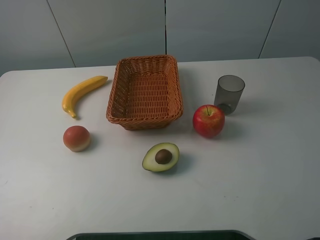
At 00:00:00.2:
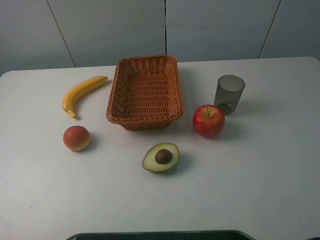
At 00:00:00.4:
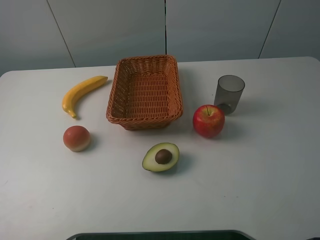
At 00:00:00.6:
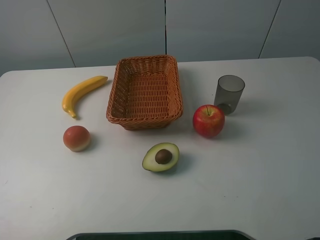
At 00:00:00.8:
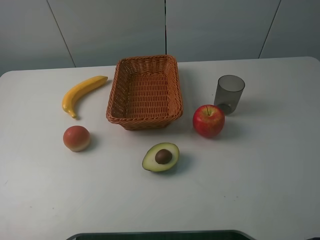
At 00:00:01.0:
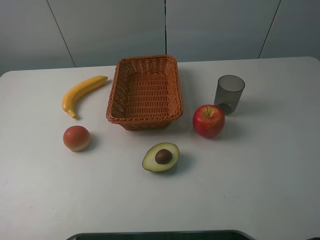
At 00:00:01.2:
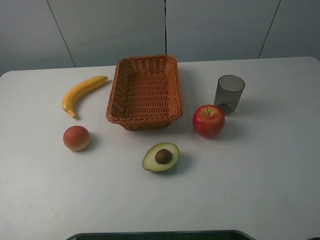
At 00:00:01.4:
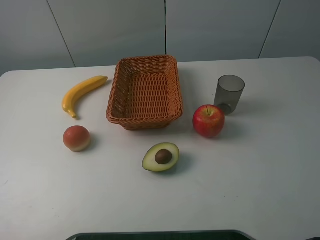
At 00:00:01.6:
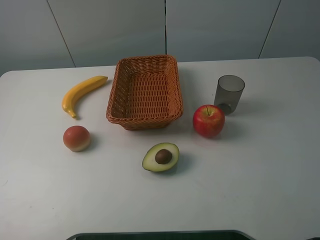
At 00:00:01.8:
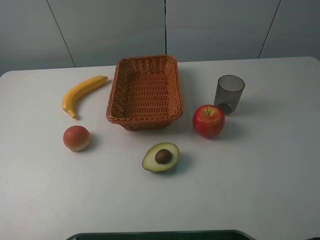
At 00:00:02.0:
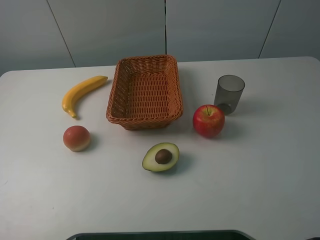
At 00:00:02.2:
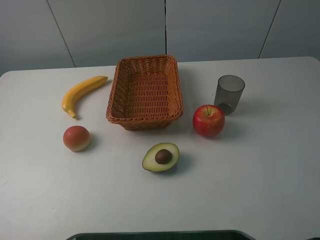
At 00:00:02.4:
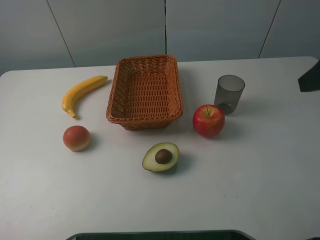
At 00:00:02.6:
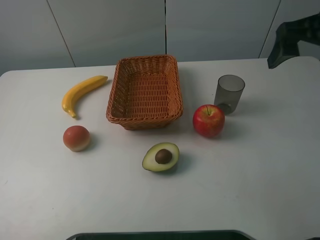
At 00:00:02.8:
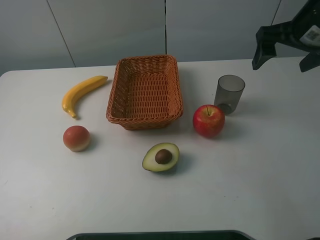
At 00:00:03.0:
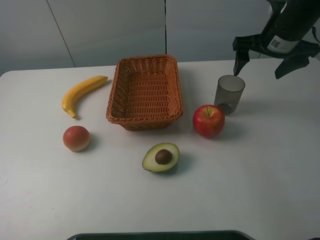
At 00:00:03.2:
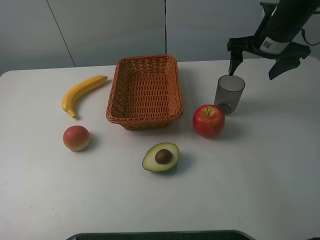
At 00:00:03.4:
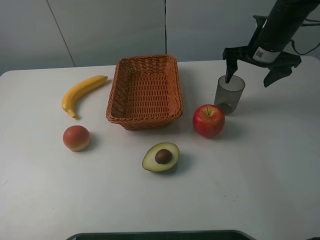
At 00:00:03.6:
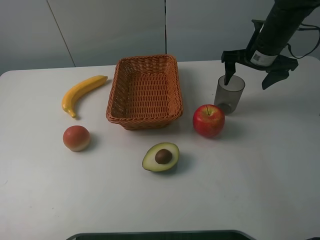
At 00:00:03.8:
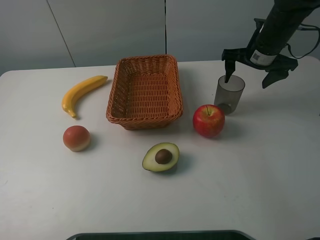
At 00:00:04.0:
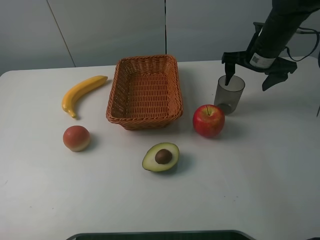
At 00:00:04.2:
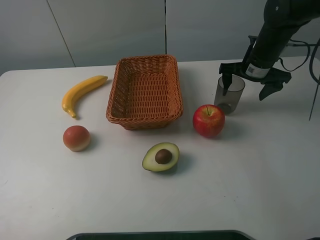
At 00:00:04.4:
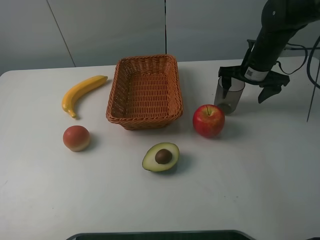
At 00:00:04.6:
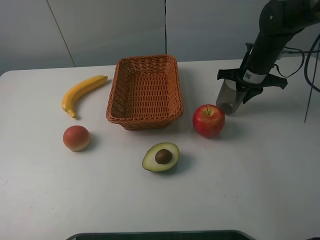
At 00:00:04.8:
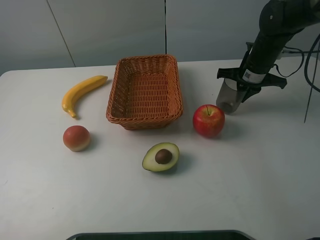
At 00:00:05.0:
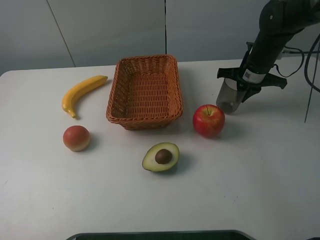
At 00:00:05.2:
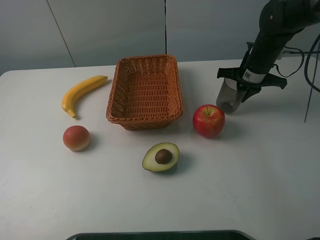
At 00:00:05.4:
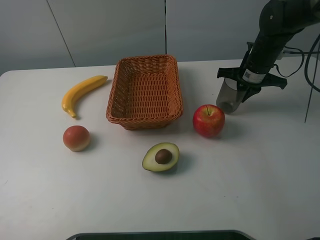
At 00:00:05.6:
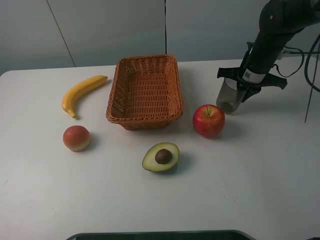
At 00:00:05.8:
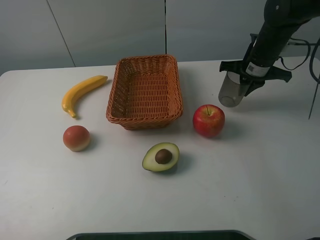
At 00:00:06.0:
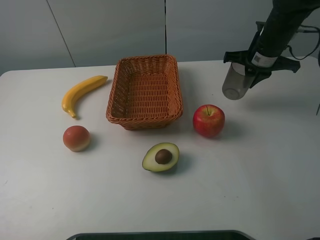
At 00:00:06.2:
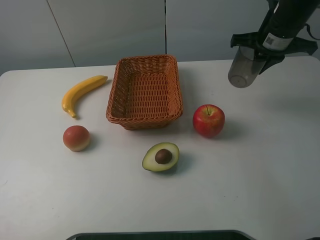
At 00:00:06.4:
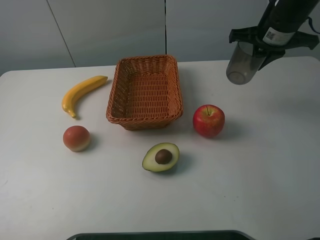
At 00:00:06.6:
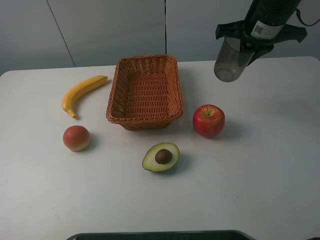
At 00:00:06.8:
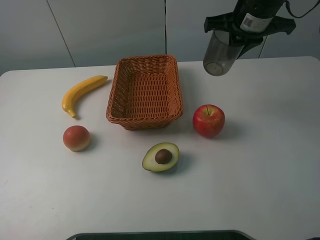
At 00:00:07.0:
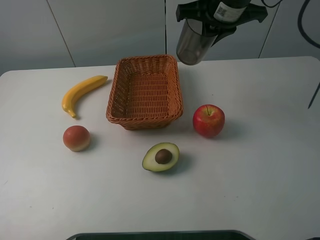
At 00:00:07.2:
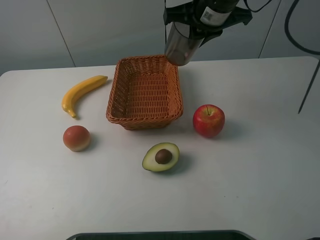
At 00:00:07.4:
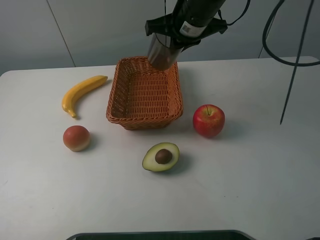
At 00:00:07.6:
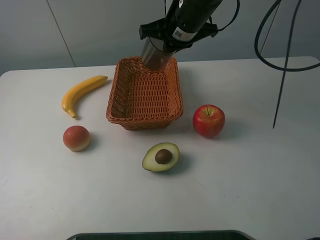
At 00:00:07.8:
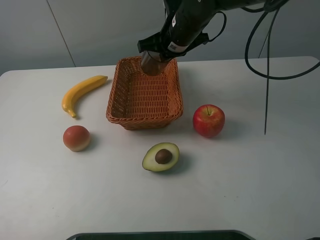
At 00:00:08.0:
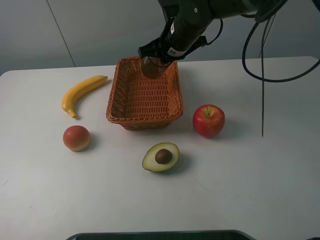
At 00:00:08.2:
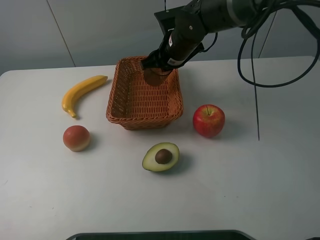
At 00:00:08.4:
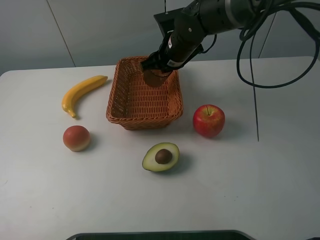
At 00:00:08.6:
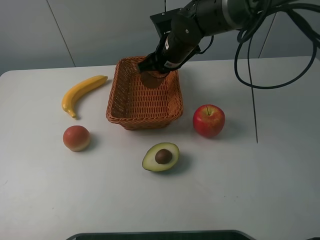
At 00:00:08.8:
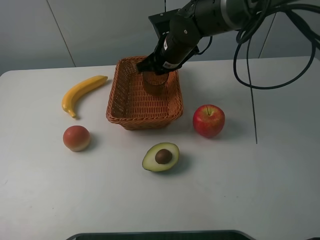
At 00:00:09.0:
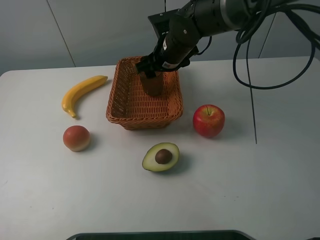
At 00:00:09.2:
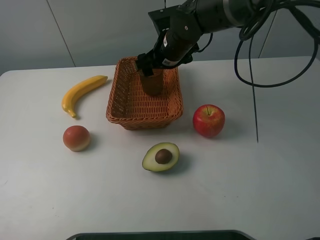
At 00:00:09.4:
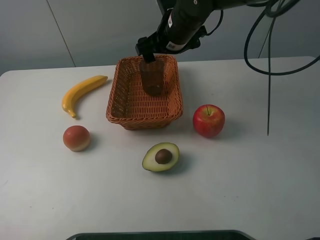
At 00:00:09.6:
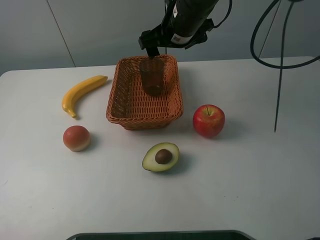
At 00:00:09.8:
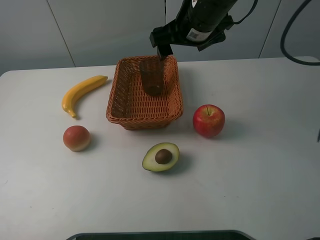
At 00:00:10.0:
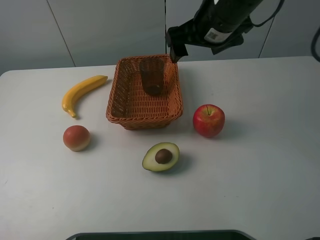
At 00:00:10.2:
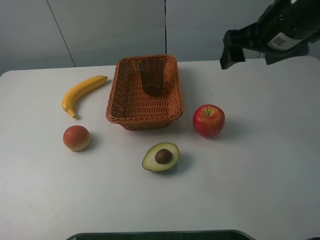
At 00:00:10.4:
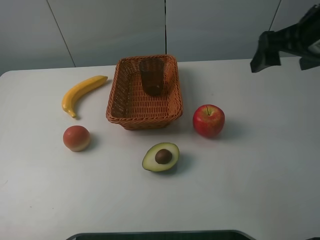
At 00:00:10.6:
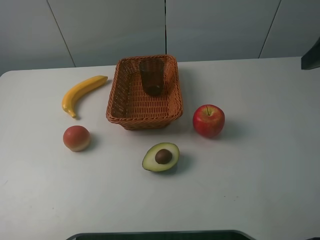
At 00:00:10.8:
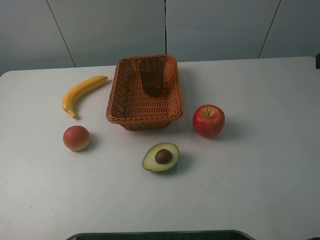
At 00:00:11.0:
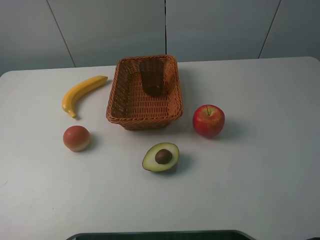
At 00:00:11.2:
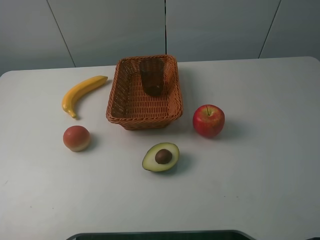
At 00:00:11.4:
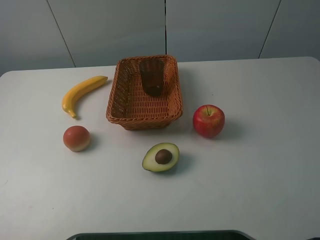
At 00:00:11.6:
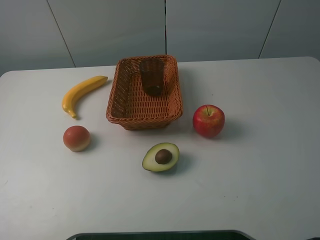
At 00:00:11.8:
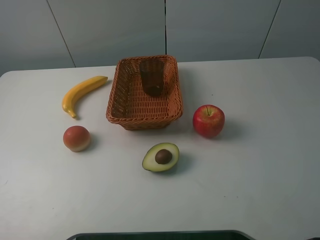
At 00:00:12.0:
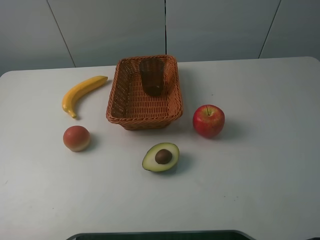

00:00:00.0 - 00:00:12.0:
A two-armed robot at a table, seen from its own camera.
00:00:00.0 - 00:00:01.6: Both grippers stay about where they are.
00:00:01.6 - 00:00:03.0: The right gripper goes approximately 35 cm forward.
00:00:03.0 - 00:00:04.4: The right gripper is displaced downward by about 10 cm.
00:00:04.4 - 00:00:06.0: The right gripper travels upward by some 5 cm, and closes its fingers.
00:00:06.0 - 00:00:07.6: The right gripper goes about 20 cm to the left.
00:00:07.6 - 00:00:09.0: The right gripper heads downward, covering some 5 cm, and opens.
00:00:09.0 - 00:00:10.4: The right gripper travels to the right, backward and upward by about 30 cm.
00:00:10.4 - 00:00:12.0: The right gripper travels backward by some 25 cm.

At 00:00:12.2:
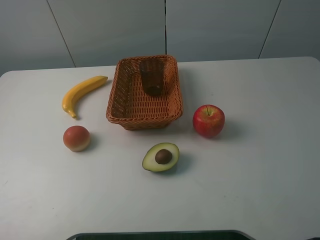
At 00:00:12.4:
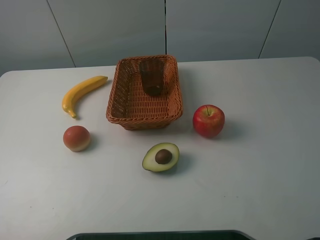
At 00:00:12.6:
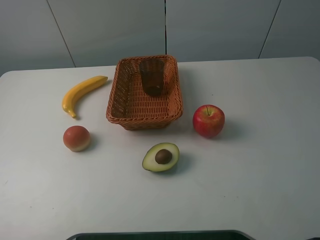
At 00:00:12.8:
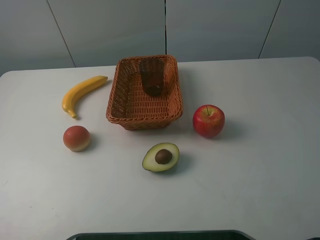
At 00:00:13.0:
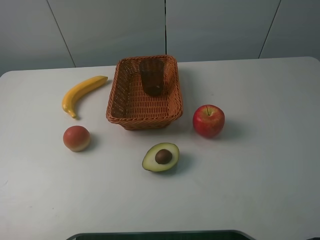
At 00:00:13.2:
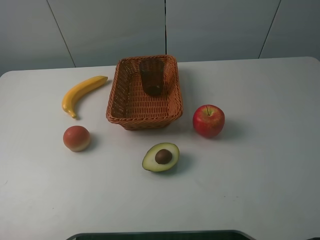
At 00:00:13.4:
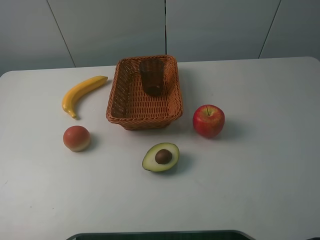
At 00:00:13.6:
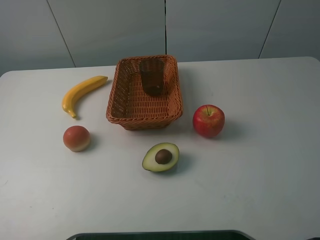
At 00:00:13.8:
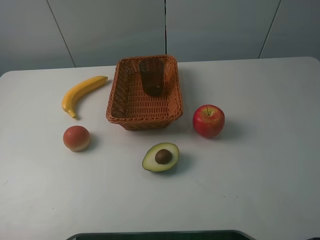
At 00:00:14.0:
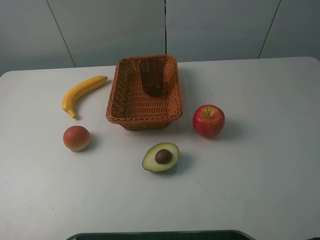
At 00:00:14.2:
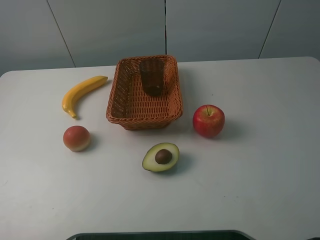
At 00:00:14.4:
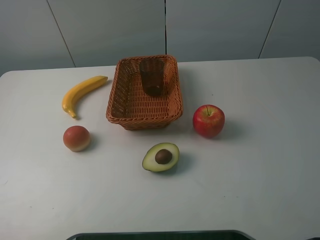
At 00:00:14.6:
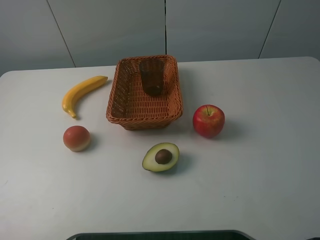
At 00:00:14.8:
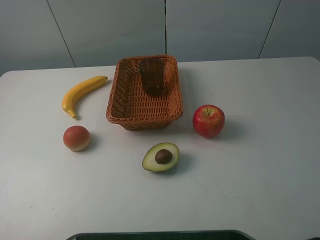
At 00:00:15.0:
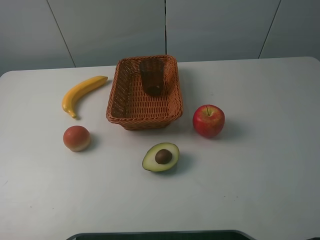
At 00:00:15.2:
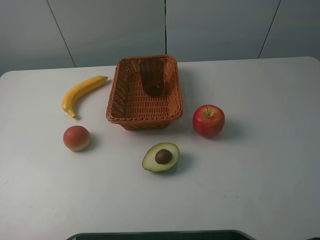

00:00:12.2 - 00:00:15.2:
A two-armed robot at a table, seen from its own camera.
00:00:12.2 - 00:00:15.2: Both grippers stay about where they are.
